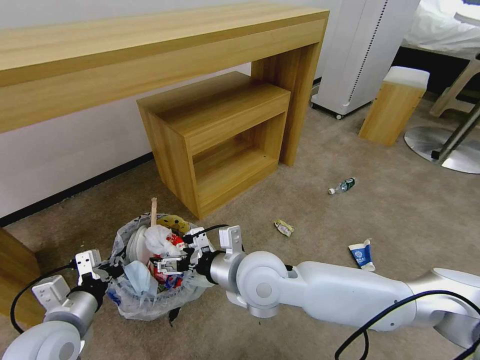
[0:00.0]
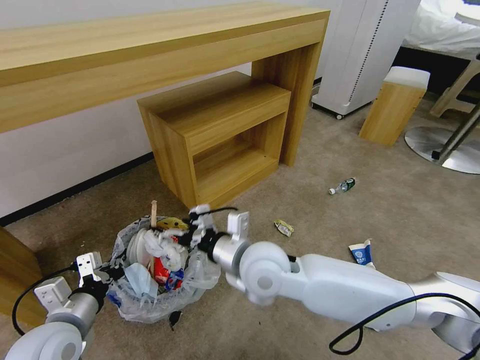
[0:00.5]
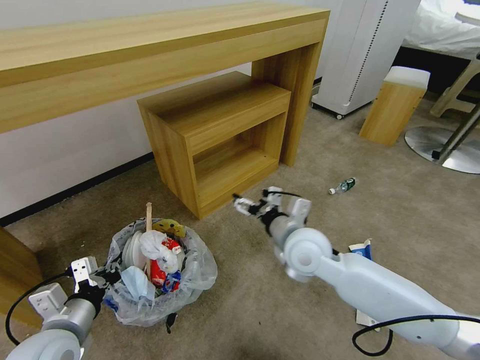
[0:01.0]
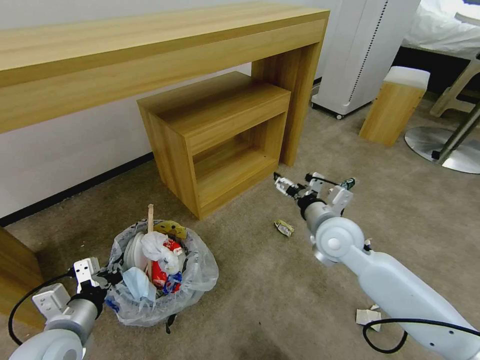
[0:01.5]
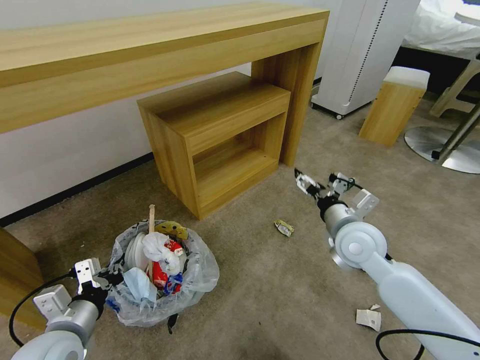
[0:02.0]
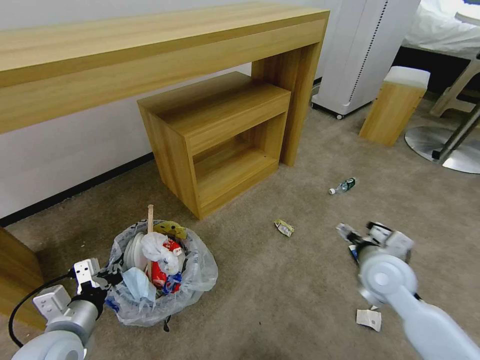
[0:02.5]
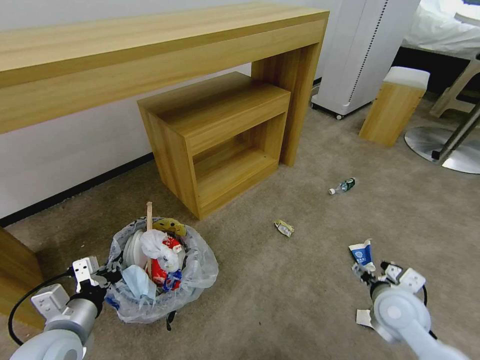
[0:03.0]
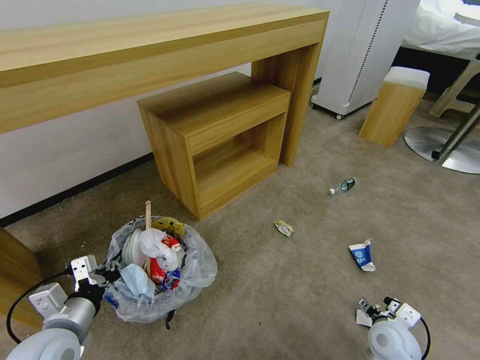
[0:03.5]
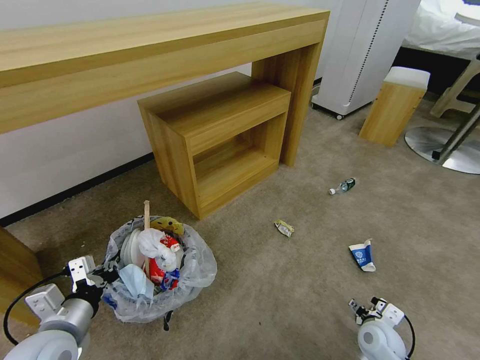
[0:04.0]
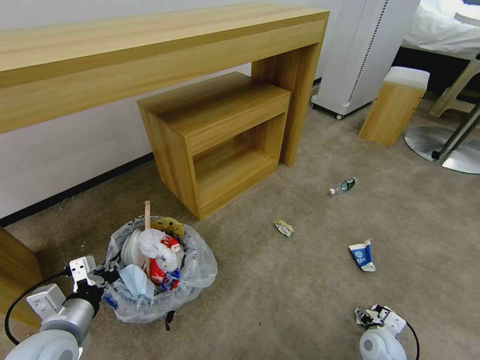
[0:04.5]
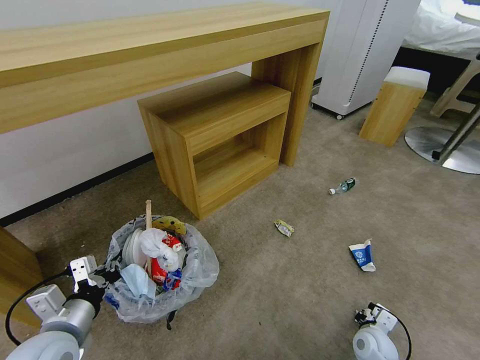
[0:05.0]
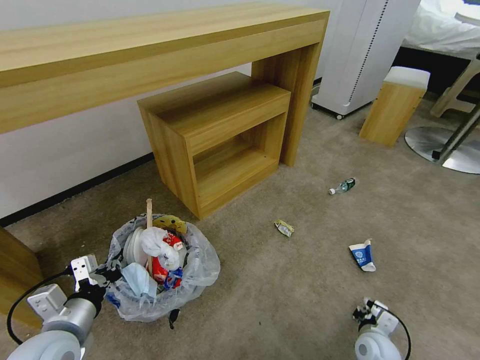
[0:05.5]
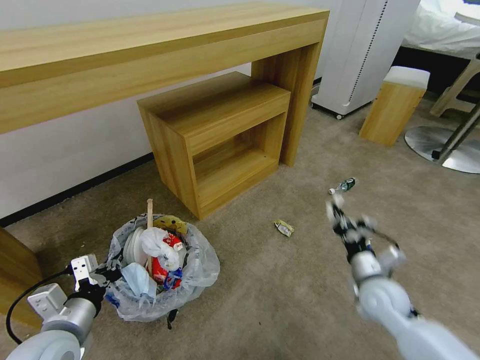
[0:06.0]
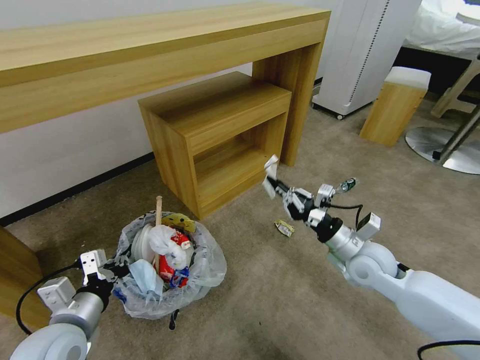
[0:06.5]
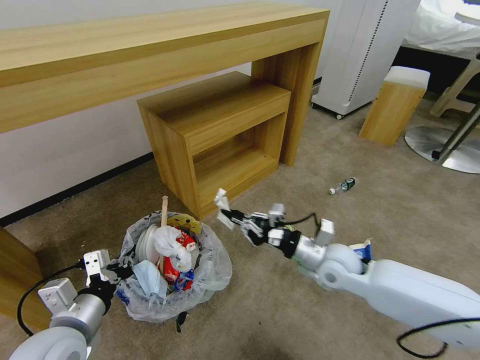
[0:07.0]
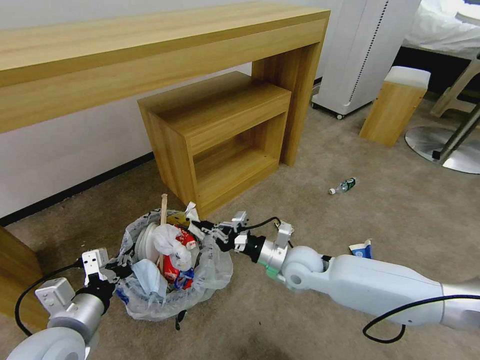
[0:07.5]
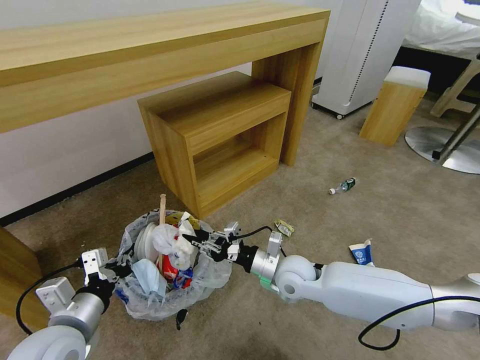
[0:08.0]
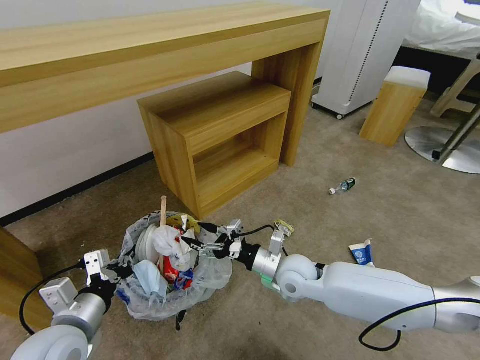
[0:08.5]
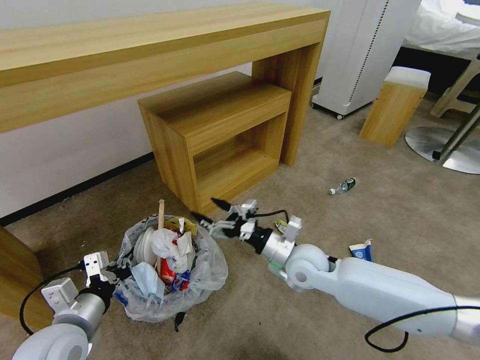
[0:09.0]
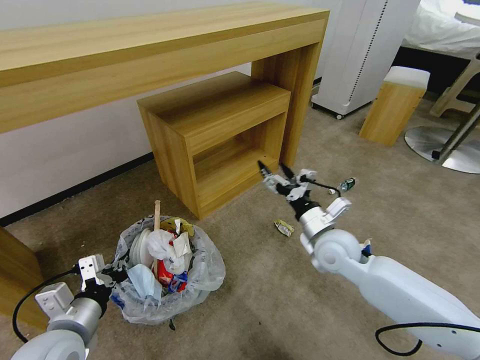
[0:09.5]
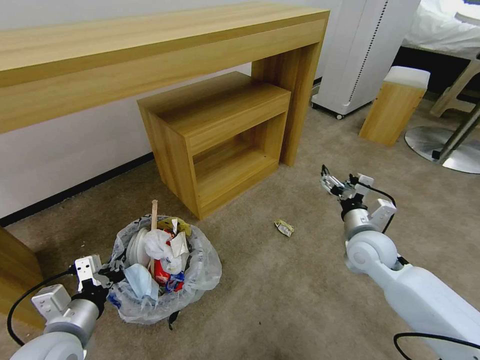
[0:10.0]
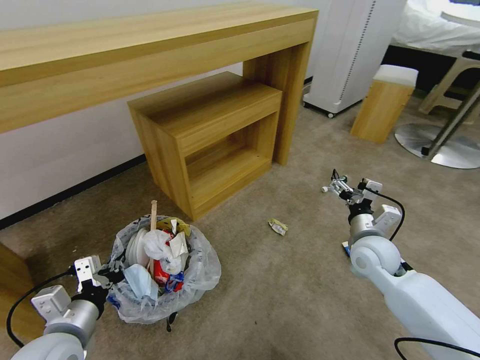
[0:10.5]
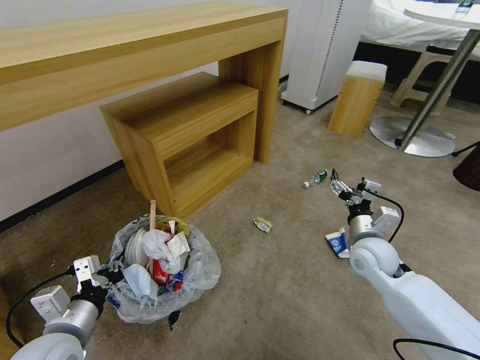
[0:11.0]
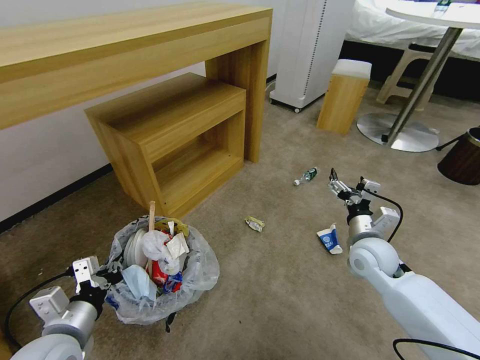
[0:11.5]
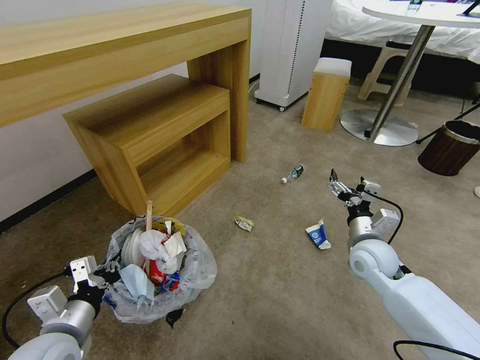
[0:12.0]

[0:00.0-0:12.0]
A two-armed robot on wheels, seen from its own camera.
Task of the whole recording: Pick up the trash bin and place the garbage on the floor into it.
0:00.0 to 0:02.0: The right gripper travels to the right by roughly 20 cm.
0:02.0 to 0:04.0: The right gripper is displaced downward, backward and to the right by approximately 30 cm.
0:04.0 to 0:06.0: The right gripper heads upward and forward, covering approximately 15 cm, and closes up.
0:06.0 to 0:08.0: The right gripper travels to the left by approximately 20 cm.
0:08.0 to 0:10.0: The right gripper travels to the right and upward by some 20 cm, and opens its fingers.

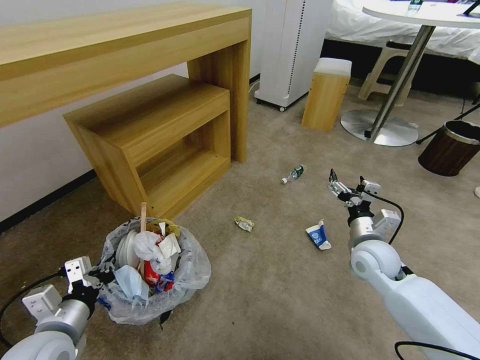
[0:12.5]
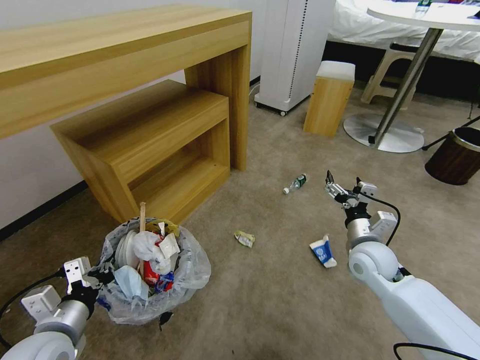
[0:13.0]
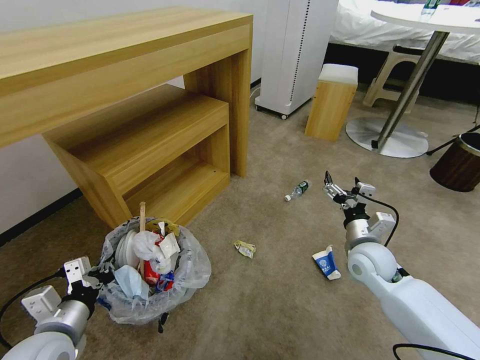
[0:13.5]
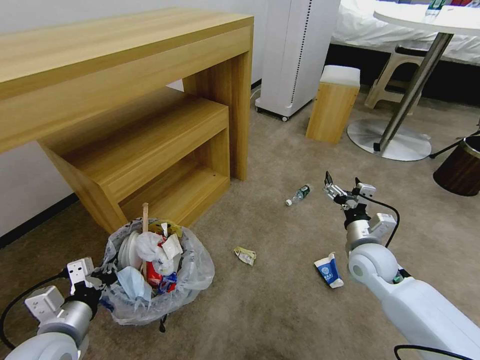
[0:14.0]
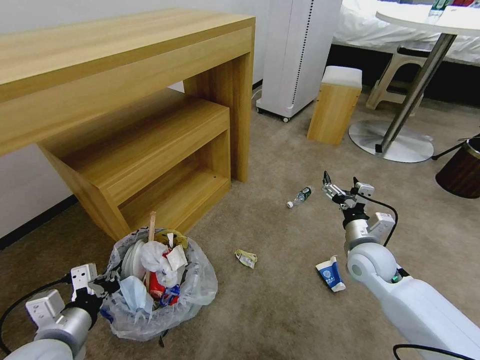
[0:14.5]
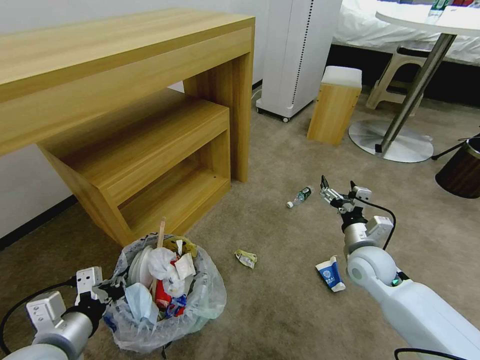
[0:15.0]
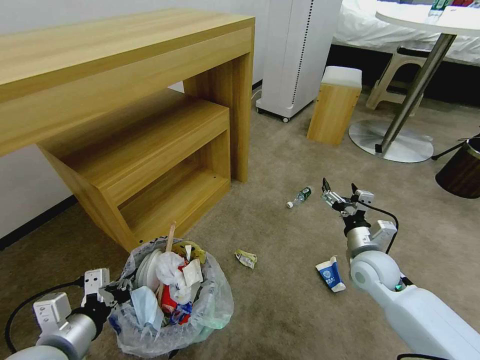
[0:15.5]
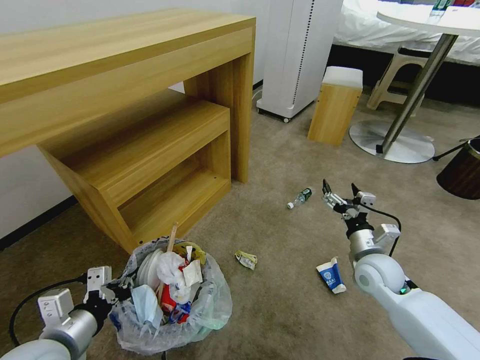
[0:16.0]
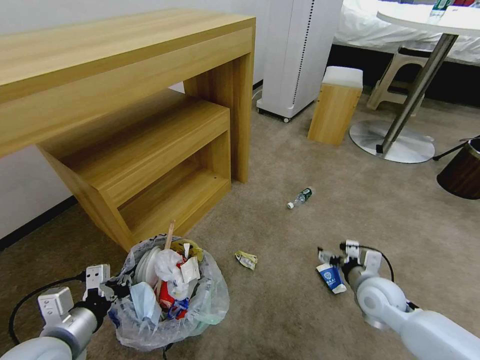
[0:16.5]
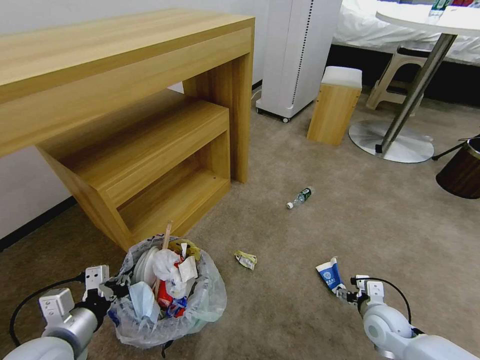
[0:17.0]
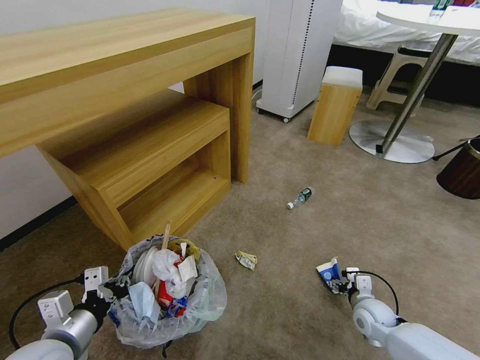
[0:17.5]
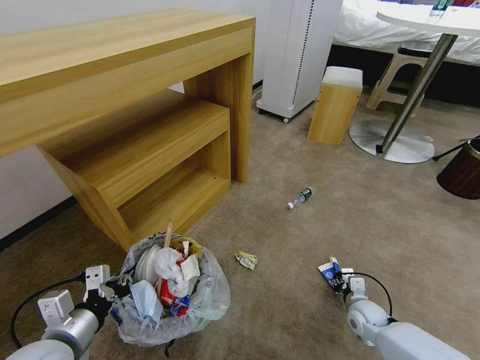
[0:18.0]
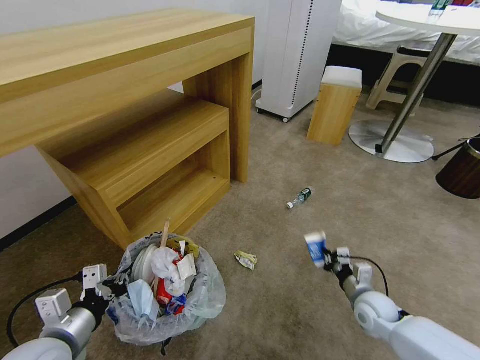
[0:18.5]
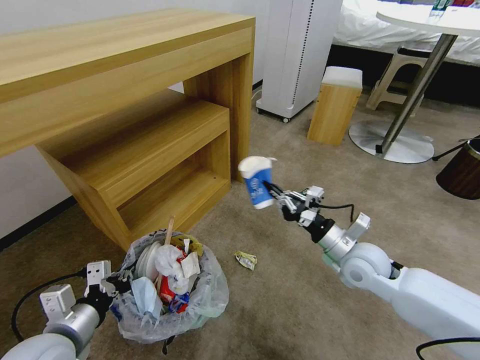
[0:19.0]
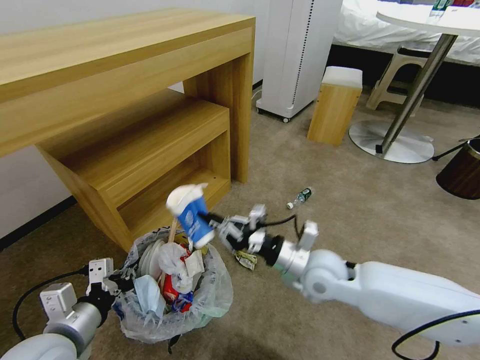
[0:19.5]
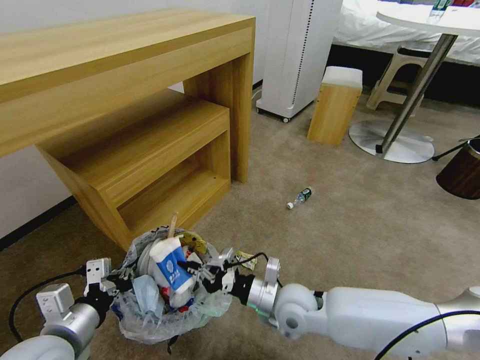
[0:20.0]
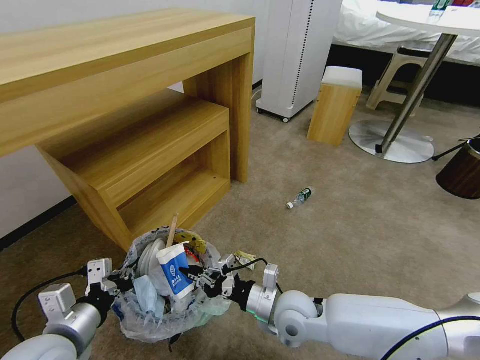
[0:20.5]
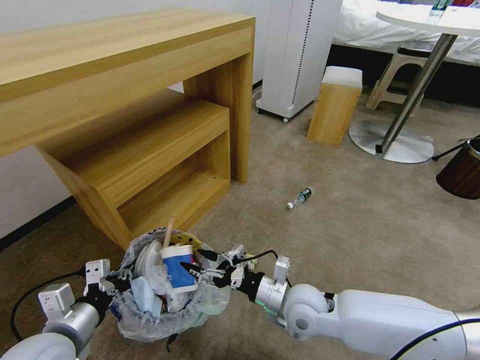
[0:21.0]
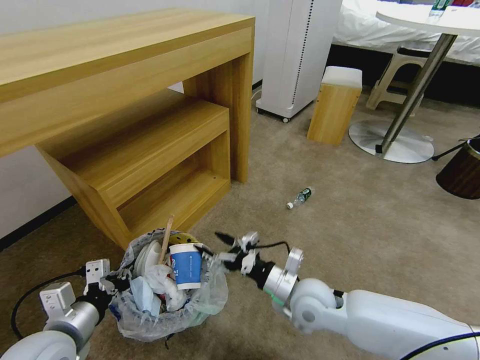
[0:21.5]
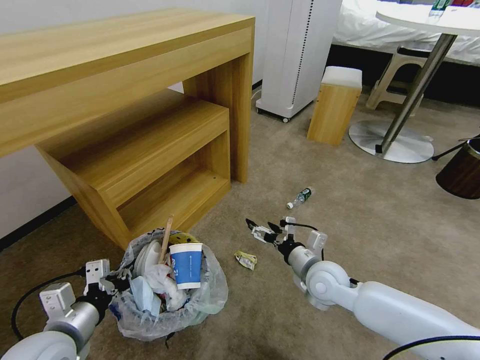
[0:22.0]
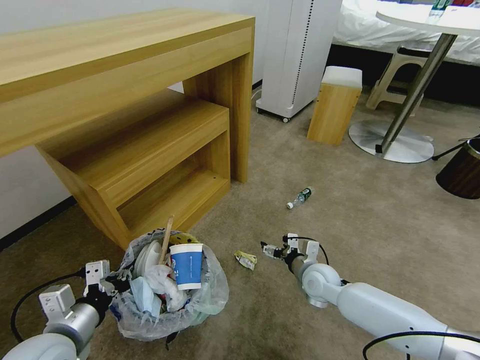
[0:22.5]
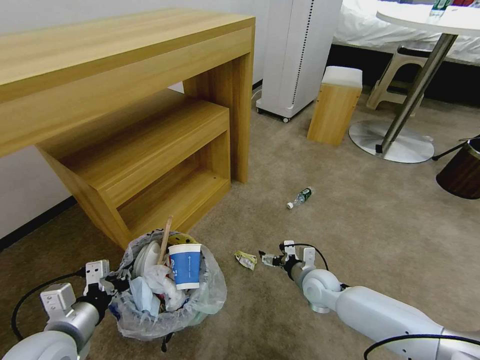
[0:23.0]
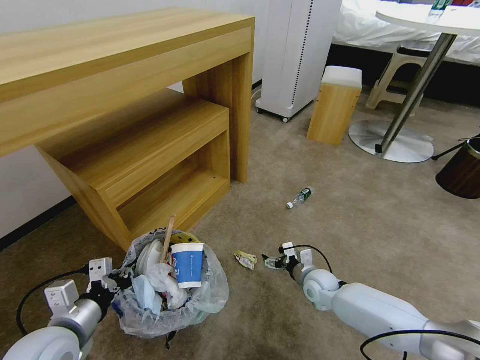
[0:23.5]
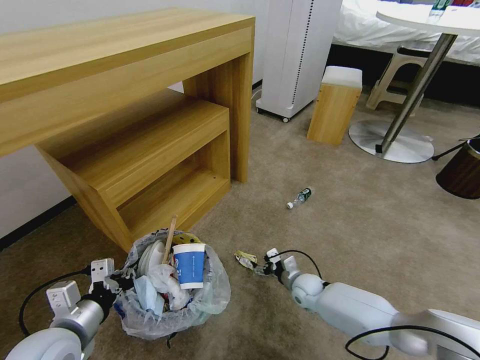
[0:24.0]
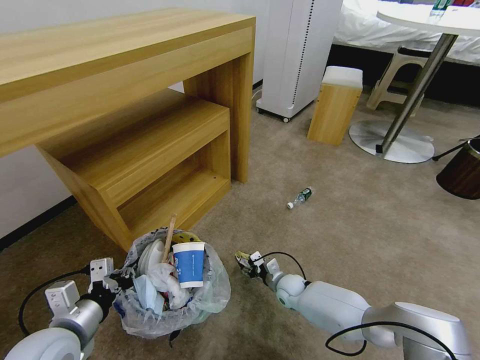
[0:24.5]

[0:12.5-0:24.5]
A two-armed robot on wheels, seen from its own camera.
Task of the whole recording: Pick up the trash bin and place the garbage on the floor into it.
0:14.5 to 0:16.5: The right gripper travels downward and backward by roughly 10 cm.
0:16.5 to 0:18.5: The right gripper travels downward by some 10 cm, and closes up.
0:18.5 to 0:20.5: The right gripper heads to the left and upward, covering about 25 cm.
0:20.5 to 0:22.5: The right gripper heads to the right, forward and downward, covering some 15 cm, and opens its fingers.
0:22.5 to 0:24.5: The right gripper heads downward, covering roughly 15 cm, and closes up.

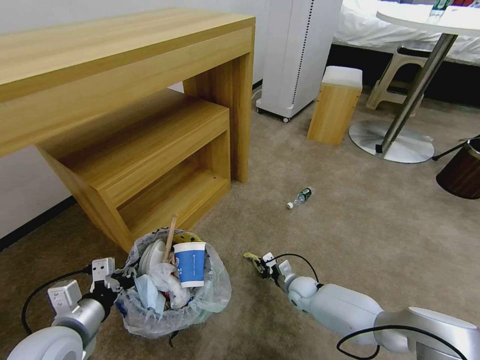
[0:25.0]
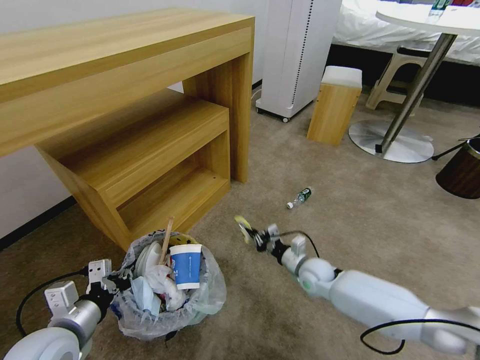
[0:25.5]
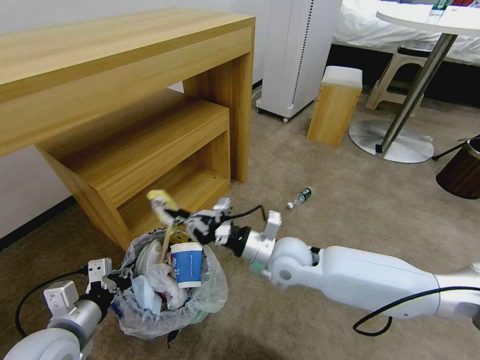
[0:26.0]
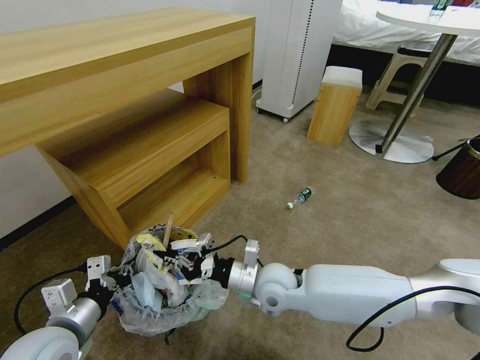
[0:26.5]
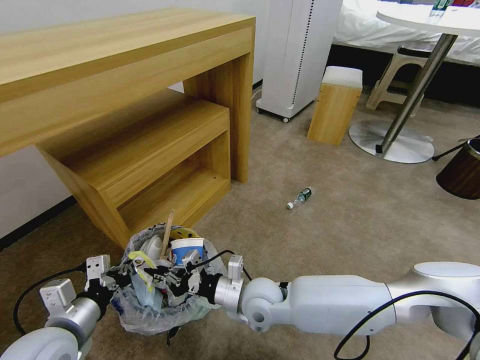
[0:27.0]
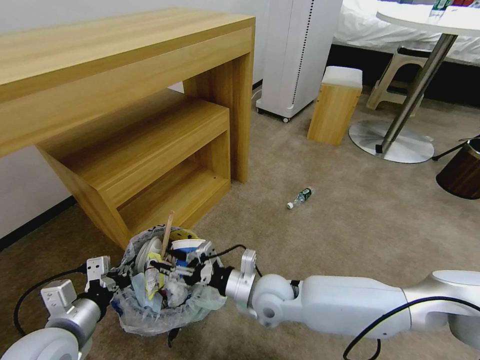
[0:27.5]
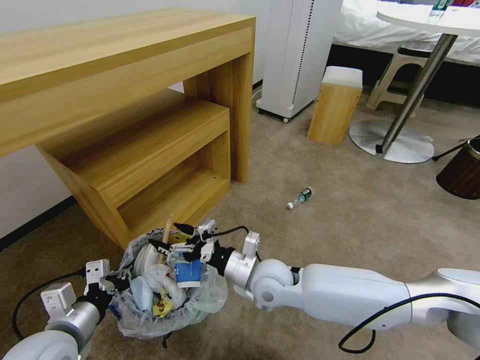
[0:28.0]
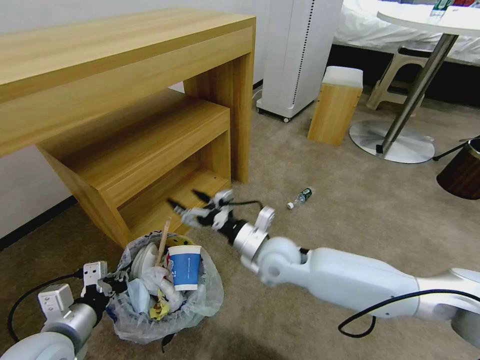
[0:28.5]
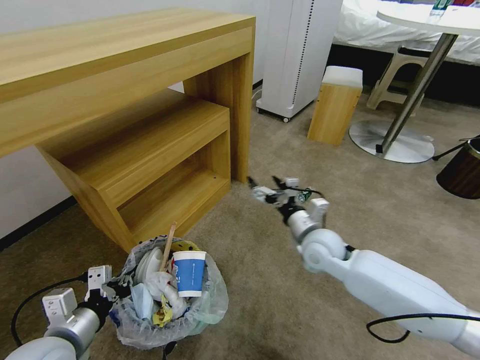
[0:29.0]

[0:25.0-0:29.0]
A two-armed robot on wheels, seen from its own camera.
Task of the whole recording: Pick up the trash bin and place the garbage on the floor into it.
0:25.0 to 0:27.0: The right gripper shifts approximately 30 cm upward, to the left and backward.
0:27.0 to 0:29.0: The right gripper is displaced to the right, forward and upward by roughly 20 cm, and opens its fingers.
